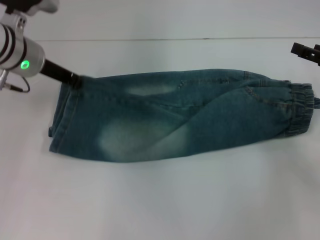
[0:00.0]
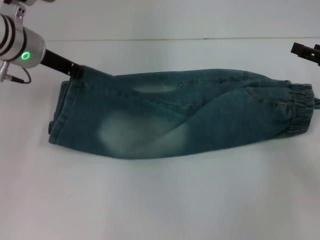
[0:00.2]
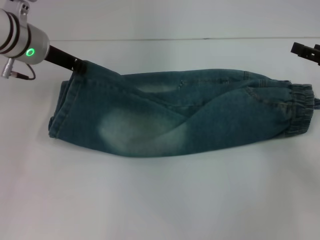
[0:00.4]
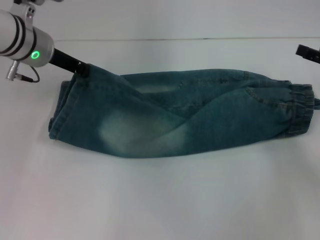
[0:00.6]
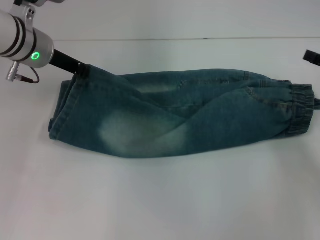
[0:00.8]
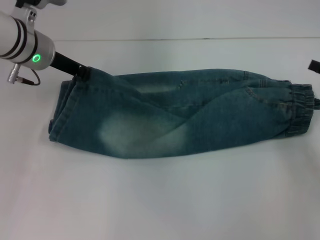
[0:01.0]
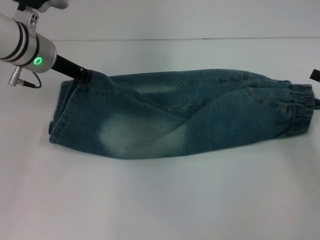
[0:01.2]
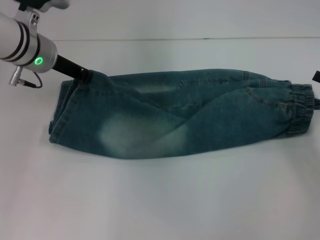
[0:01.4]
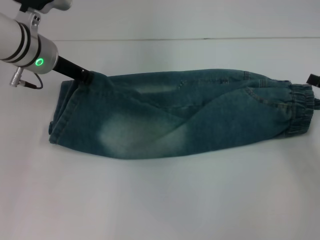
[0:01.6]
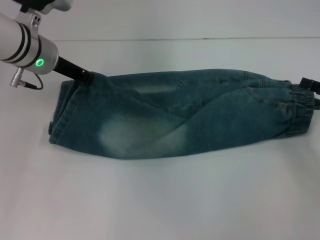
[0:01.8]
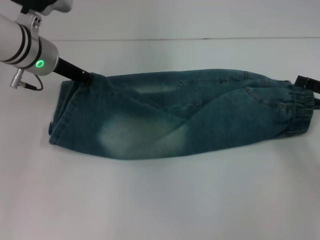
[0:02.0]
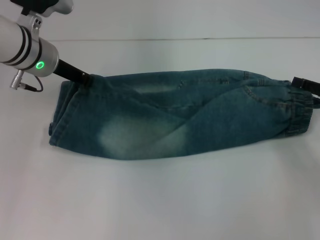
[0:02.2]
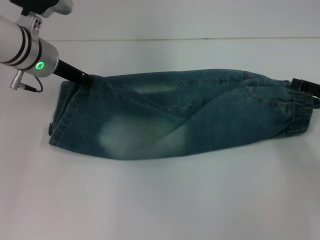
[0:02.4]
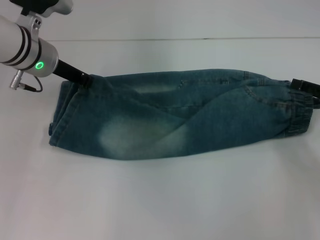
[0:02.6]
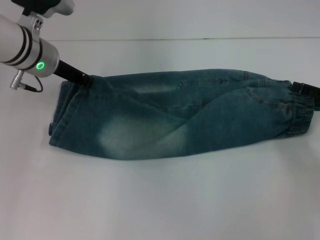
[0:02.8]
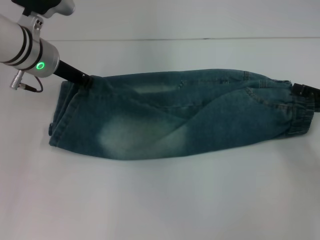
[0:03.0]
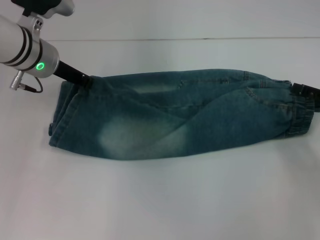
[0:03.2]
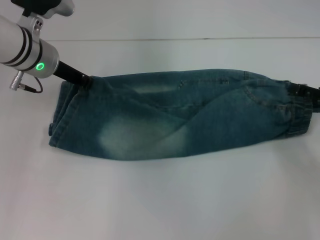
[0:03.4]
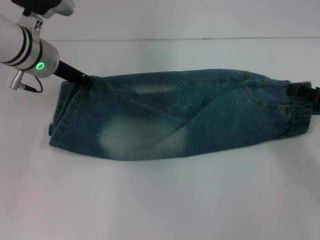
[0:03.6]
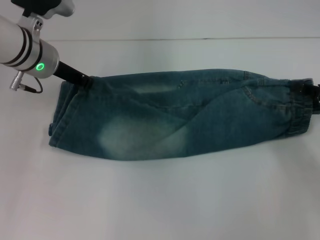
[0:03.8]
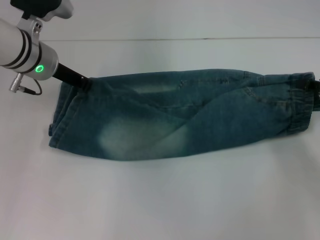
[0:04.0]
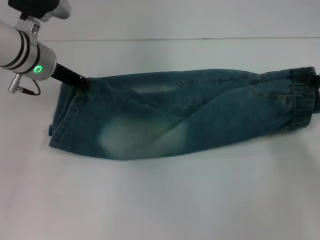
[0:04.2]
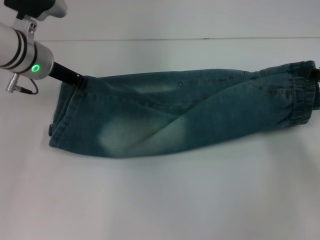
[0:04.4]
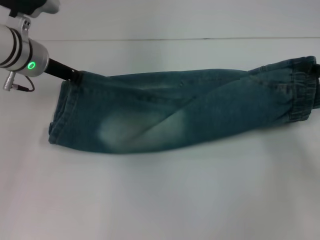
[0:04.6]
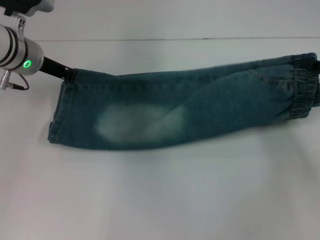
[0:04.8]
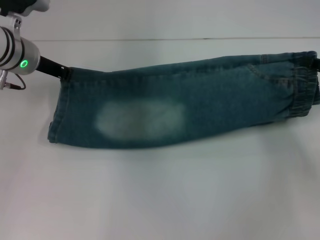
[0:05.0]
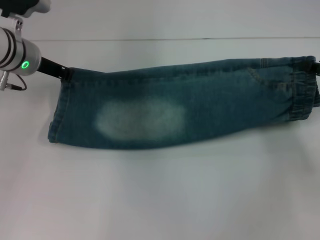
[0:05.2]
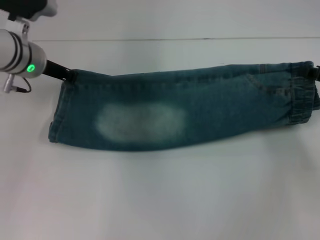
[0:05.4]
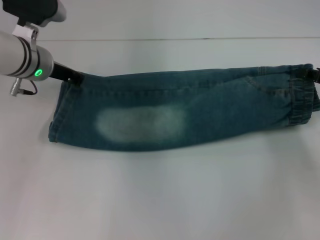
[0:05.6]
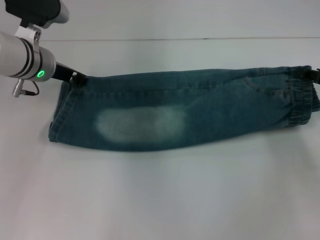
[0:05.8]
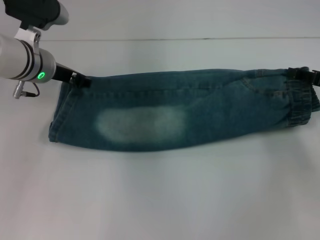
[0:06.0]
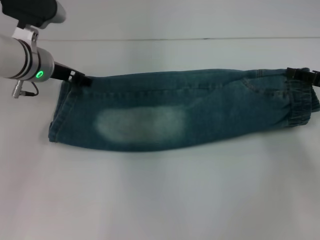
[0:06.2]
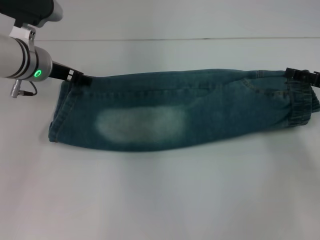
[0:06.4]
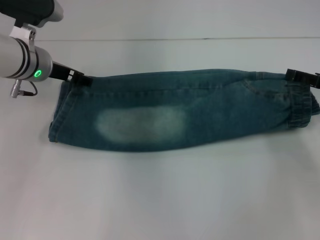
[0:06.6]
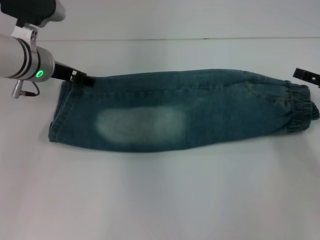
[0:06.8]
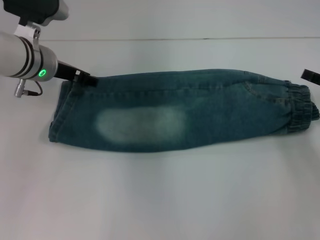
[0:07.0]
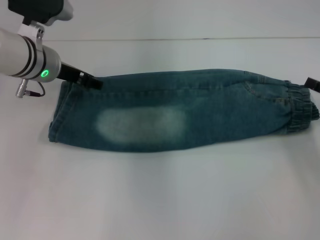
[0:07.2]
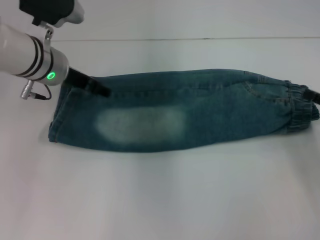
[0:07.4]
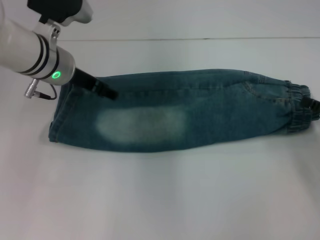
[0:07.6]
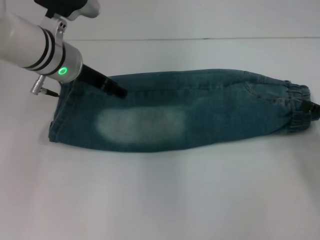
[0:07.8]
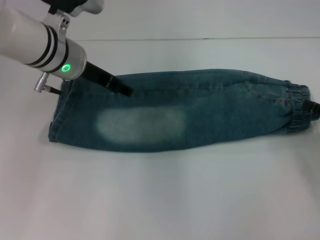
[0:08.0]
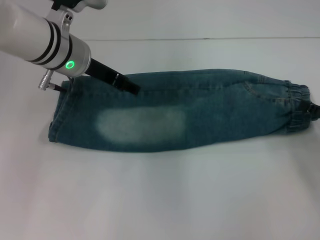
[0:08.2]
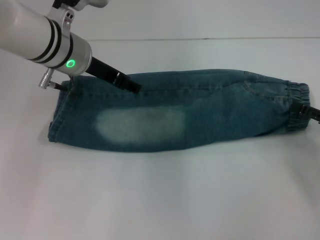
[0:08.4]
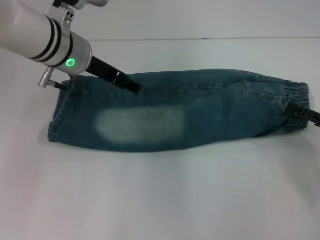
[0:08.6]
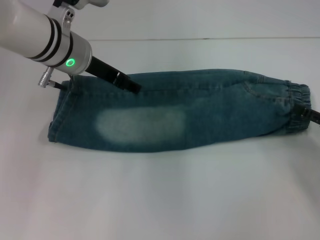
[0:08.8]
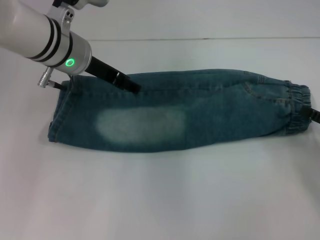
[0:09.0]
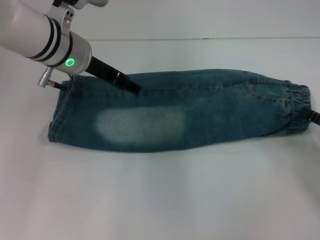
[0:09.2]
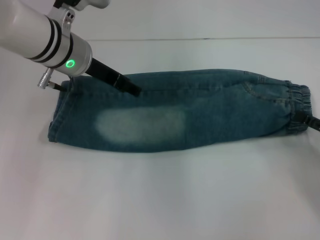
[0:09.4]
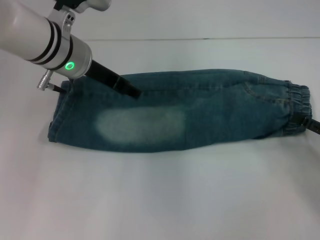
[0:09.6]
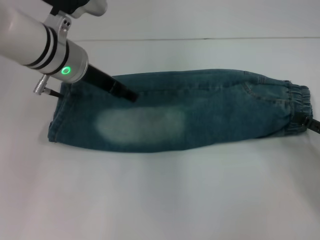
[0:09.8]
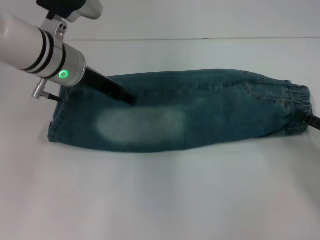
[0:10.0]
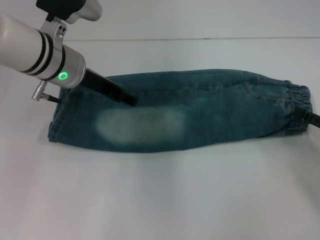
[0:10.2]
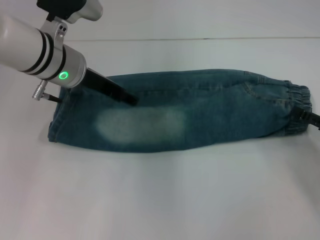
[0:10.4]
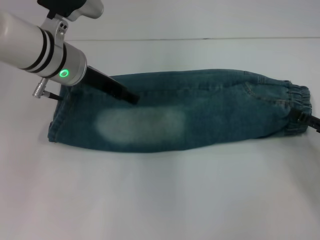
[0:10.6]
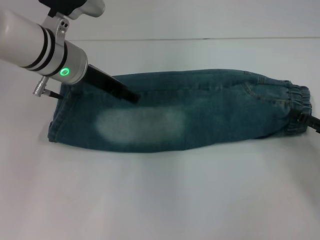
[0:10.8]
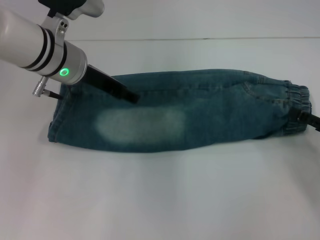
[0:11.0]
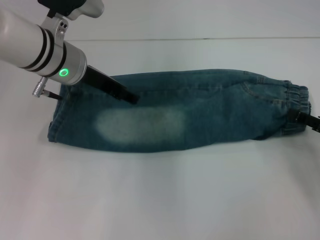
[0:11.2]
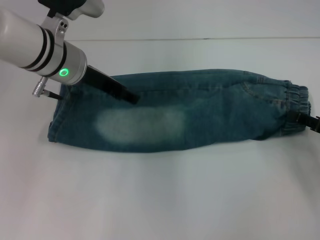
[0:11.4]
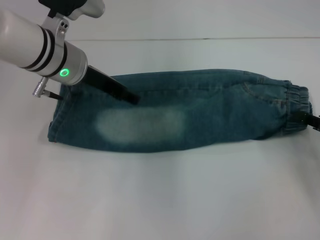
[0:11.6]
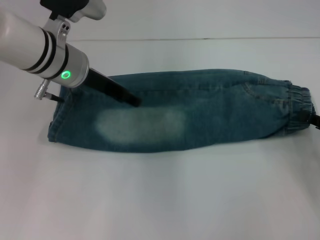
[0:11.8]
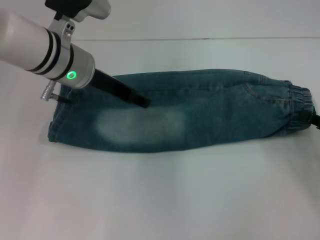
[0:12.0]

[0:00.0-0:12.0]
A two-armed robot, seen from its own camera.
Step, 0:00.0 to 0:07.0: Fold upward with your right hand.
Step, 0:07.2 to 0:11.8: Grab the waistband with your right hand.
0:00.0 to 0:01.6: The right gripper shifts by approximately 5 cm.
0:01.6 to 0:03.0: The grippers make only small movements.
0:03.0 to 0:04.4: The right gripper closes its fingers.
0:04.4 to 0:06.0: The grippers move only a little.
0:06.0 to 0:07.6: The right gripper moves backward, approximately 5 cm, and opens its fingers, while the left gripper opens its fingers.
0:07.6 to 0:10.4: The grippers make only small movements.
0:10.4 to 0:12.0: The right gripper closes.

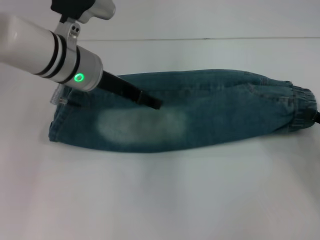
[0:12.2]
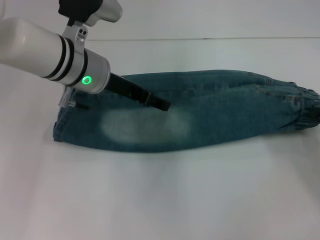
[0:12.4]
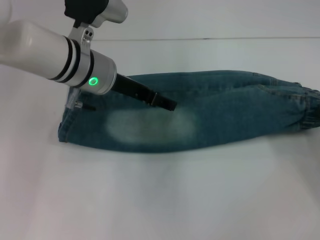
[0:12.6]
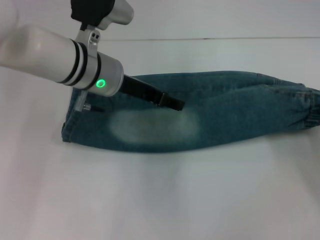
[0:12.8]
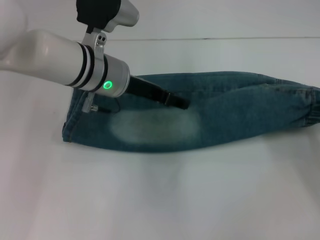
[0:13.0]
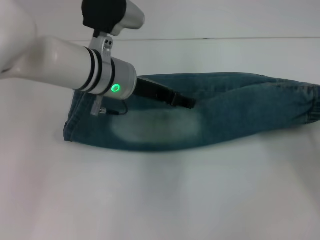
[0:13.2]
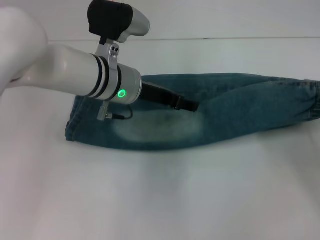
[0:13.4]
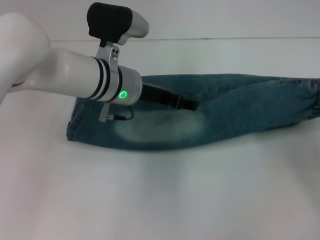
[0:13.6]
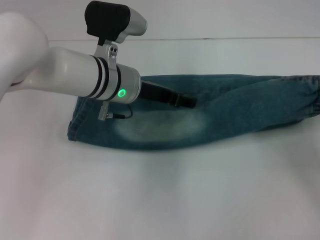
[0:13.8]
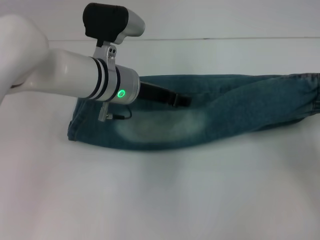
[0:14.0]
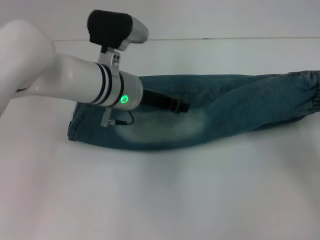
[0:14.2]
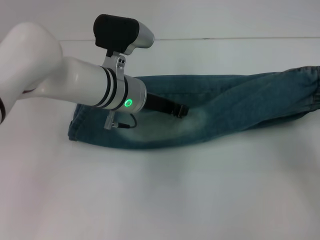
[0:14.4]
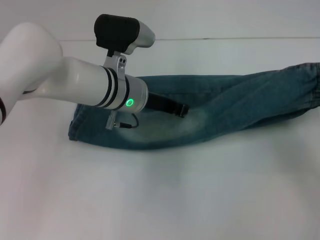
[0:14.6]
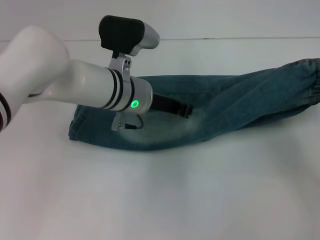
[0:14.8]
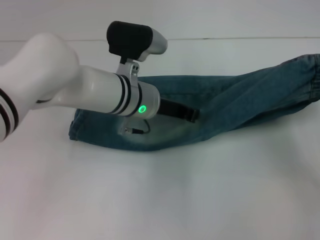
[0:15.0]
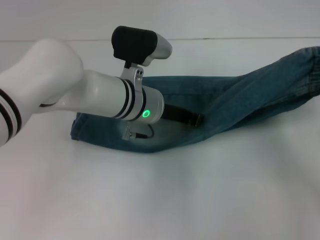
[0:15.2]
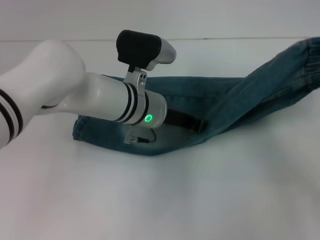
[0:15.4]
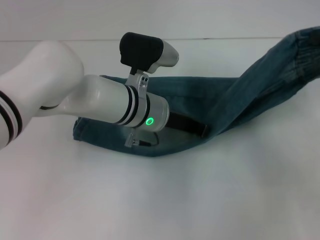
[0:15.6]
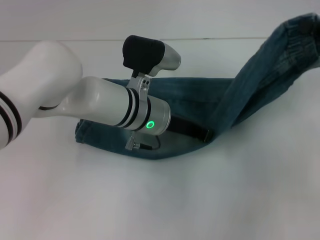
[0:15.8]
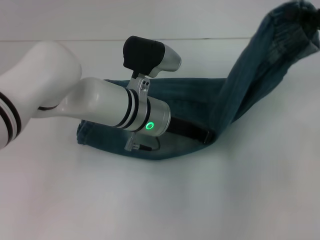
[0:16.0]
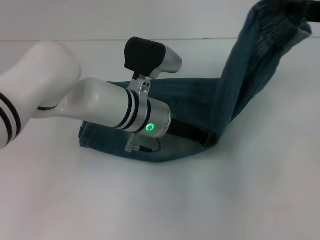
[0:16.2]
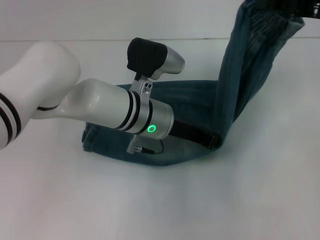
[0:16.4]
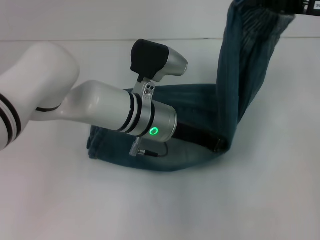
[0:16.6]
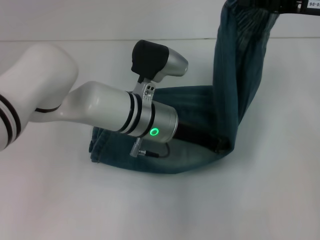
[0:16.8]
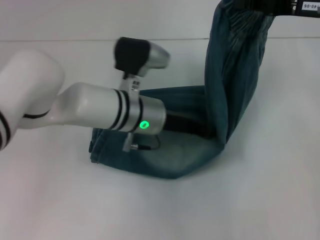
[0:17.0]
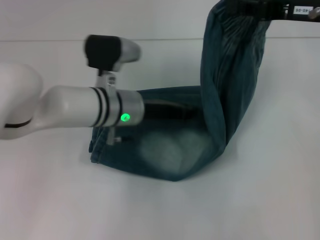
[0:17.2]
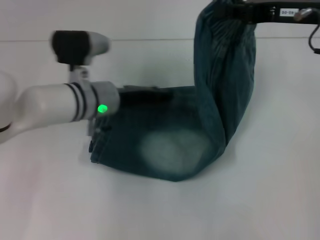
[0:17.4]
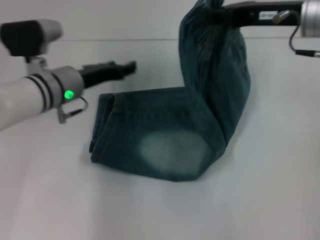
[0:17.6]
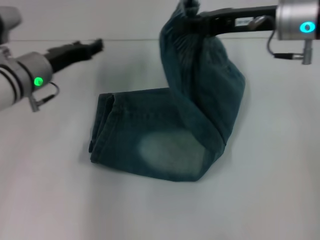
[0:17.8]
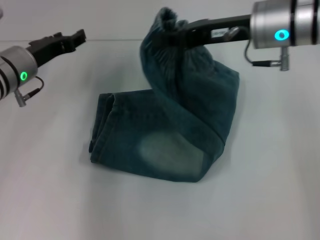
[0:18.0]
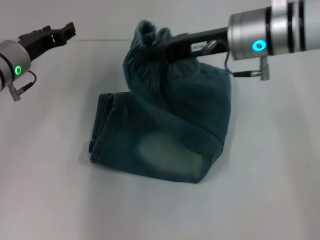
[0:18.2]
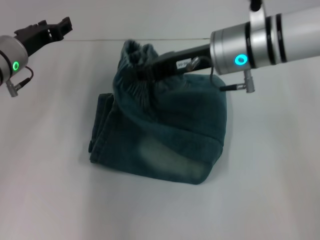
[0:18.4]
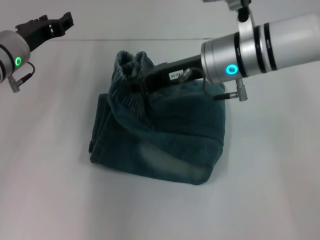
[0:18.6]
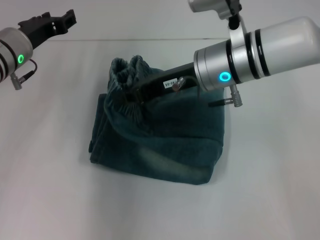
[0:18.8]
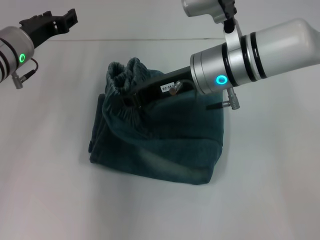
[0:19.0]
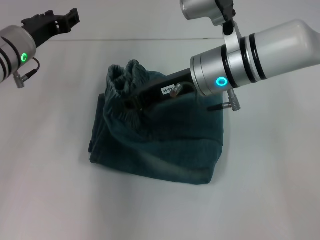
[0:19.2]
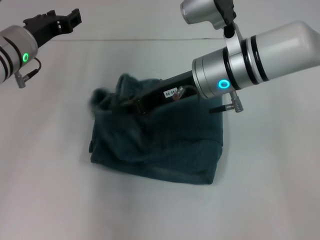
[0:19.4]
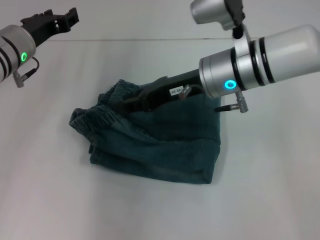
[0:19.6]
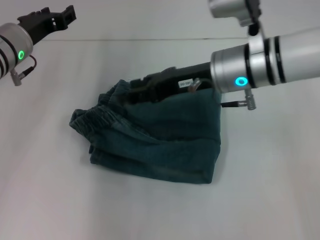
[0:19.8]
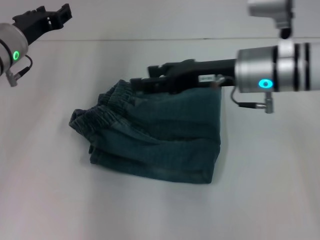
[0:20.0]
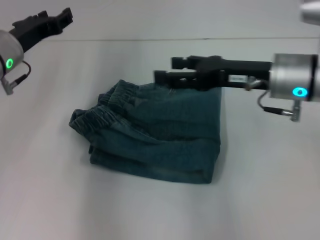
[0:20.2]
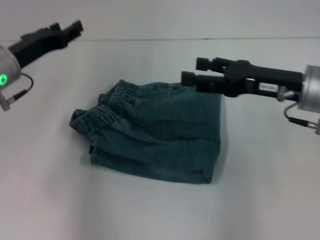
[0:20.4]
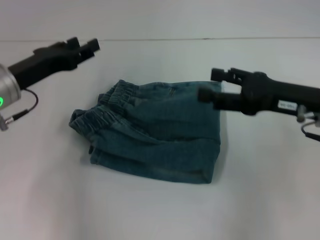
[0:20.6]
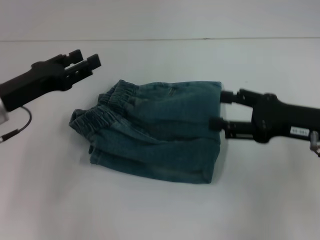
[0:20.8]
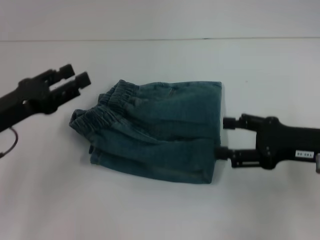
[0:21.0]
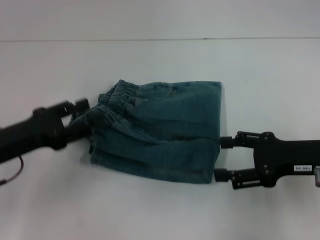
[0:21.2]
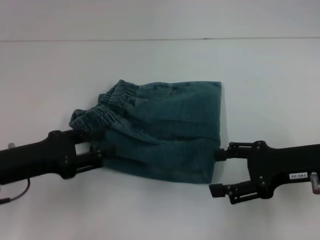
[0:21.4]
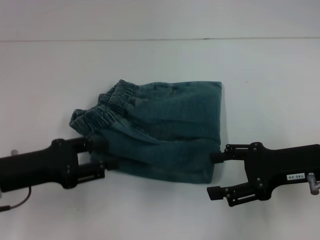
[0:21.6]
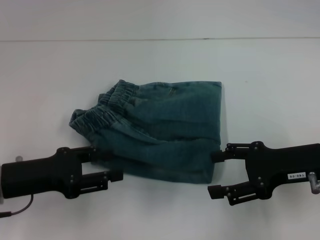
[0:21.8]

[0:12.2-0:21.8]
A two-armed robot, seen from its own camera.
Step, 0:12.2 to 0:17.0: Press the middle of the pants with your left hand.
Step, 0:17.2 to 0:19.4: Fold to the left with your right hand.
0:12.2 to 0:13.8: The left gripper moves approximately 5 cm.
0:13.8 to 0:15.4: The right gripper is displaced upward by roughly 5 cm, while the left gripper shifts by roughly 5 cm, and closes.
0:15.4 to 0:17.0: The right gripper travels to the left, upward and forward by about 15 cm.
0:17.0 to 0:18.6: Both grippers move to the left, about 15 cm. The left gripper opens its fingers.
0:18.6 to 0:20.2: The right gripper goes roughly 10 cm to the right, and opens up.
0:20.2 to 0:21.8: The left gripper heads backward, covering roughly 15 cm. Meanwhile the right gripper heads backward and to the right, covering about 10 cm.
